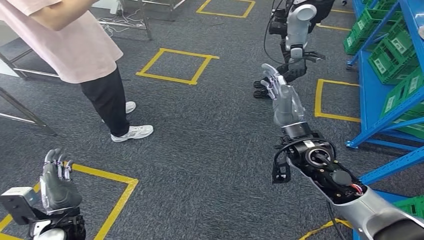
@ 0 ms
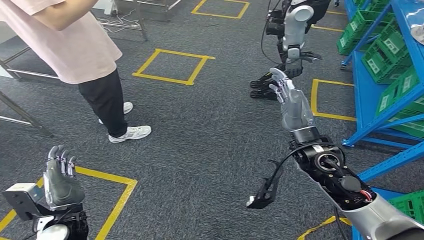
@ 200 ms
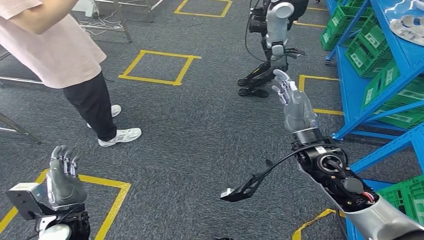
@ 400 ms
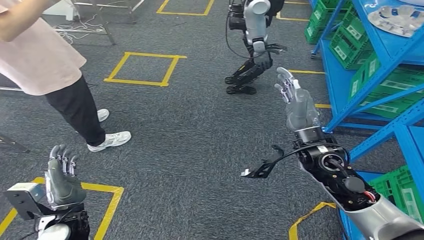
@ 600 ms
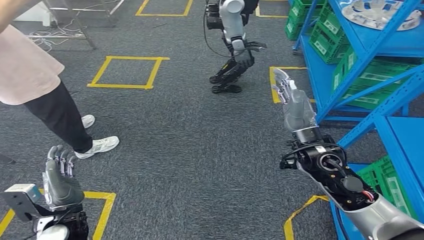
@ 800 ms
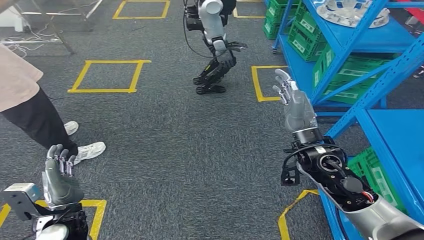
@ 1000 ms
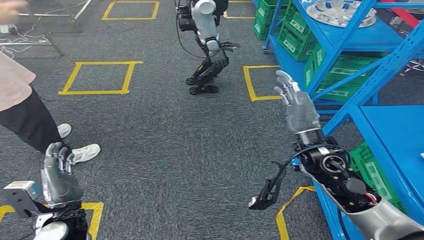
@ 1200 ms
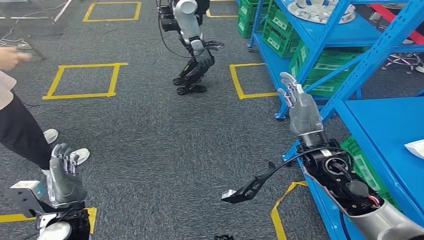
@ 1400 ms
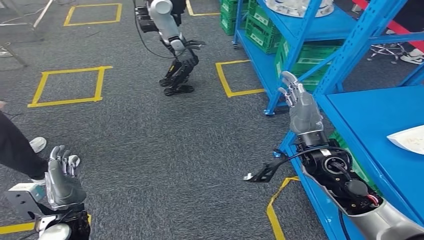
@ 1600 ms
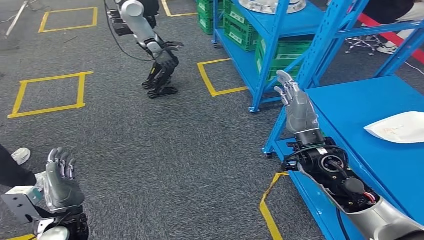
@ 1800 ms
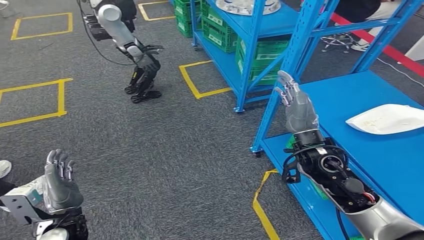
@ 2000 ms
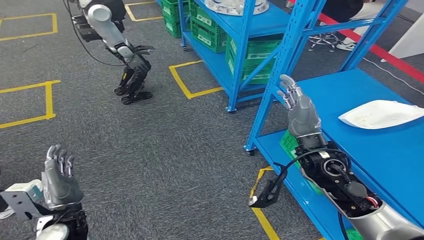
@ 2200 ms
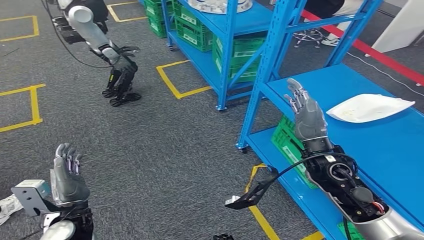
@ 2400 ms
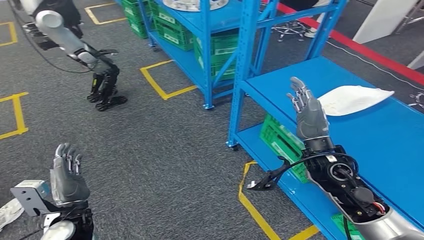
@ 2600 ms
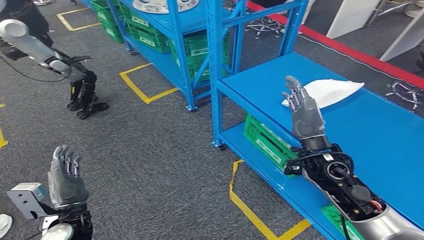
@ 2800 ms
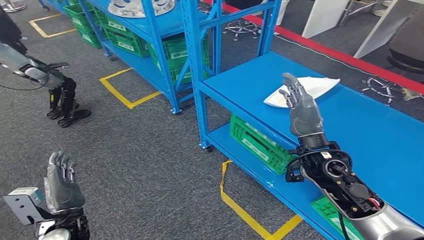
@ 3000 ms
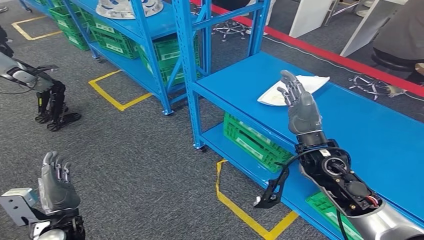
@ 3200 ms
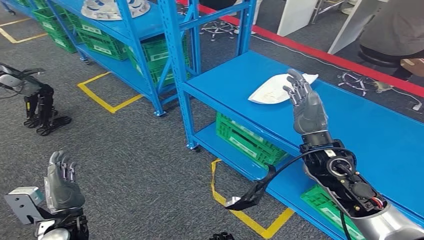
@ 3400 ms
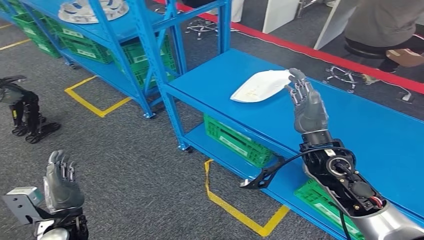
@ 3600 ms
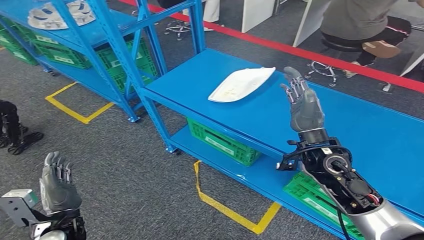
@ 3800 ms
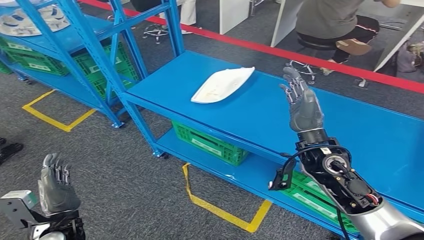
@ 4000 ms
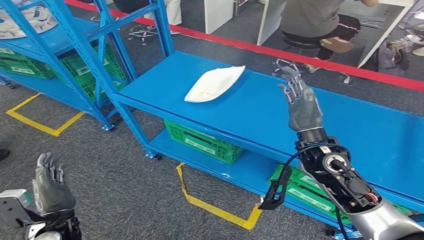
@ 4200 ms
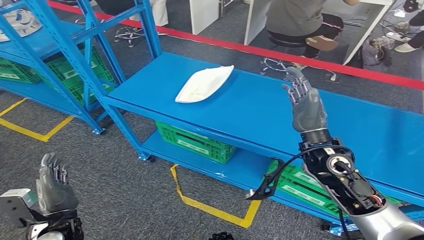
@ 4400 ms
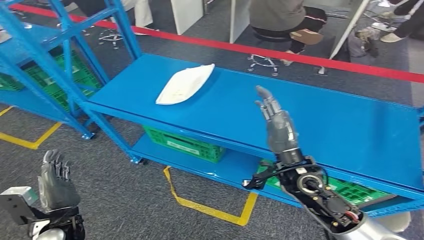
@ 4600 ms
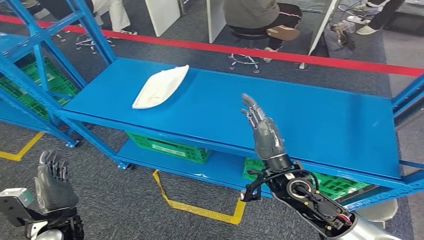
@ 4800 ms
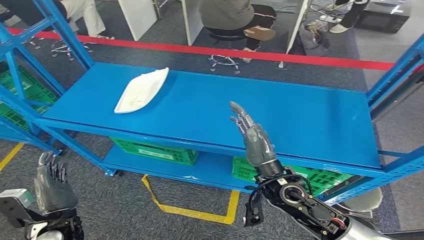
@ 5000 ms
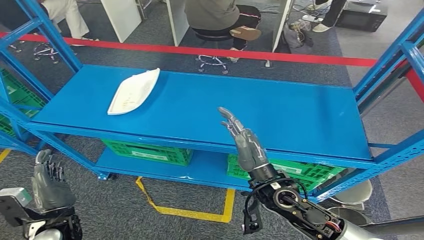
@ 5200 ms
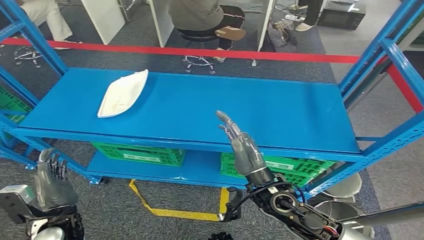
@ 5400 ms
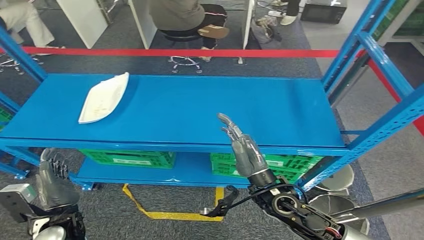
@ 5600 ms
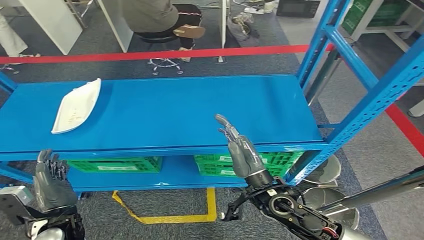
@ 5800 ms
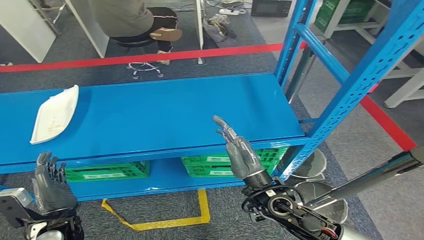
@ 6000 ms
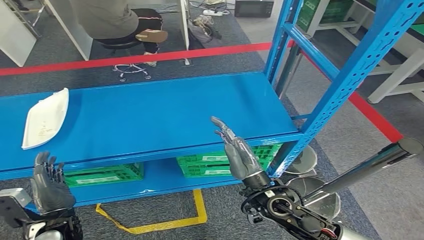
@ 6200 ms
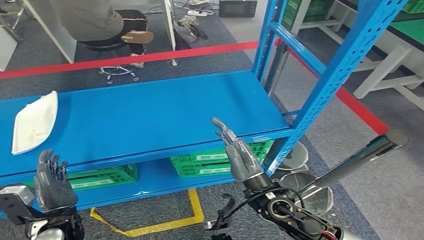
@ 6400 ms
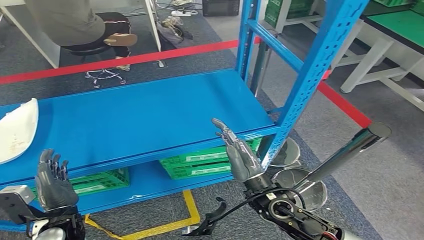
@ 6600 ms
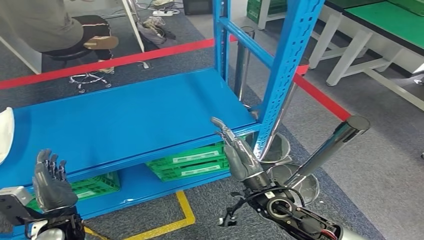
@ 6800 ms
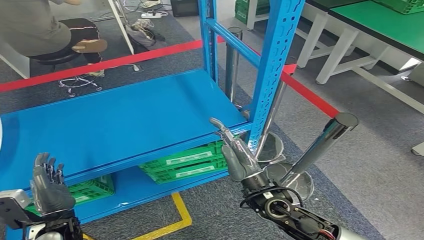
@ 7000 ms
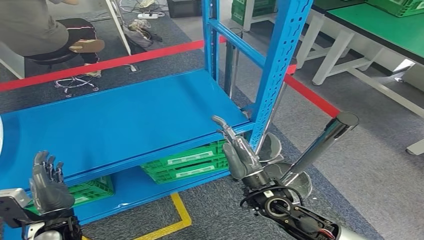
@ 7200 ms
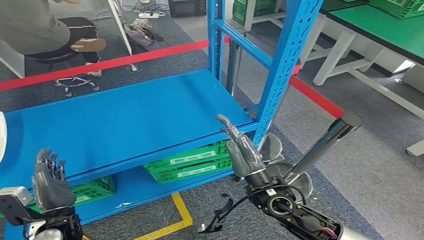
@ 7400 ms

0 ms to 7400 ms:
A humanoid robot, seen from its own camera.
Step, 0 ms to 7400 ms: Return to the initial position at the workbench.
